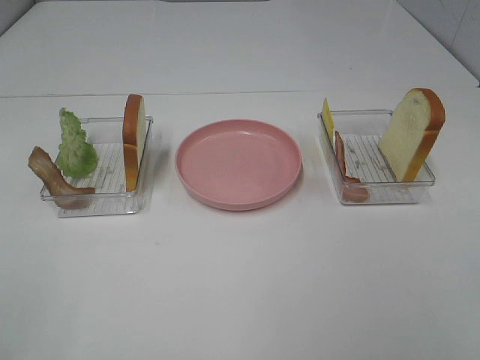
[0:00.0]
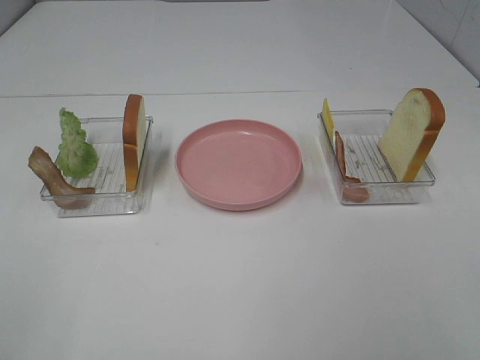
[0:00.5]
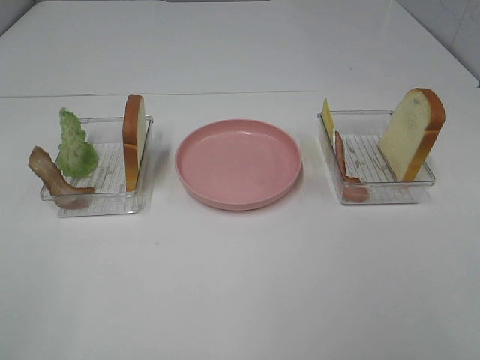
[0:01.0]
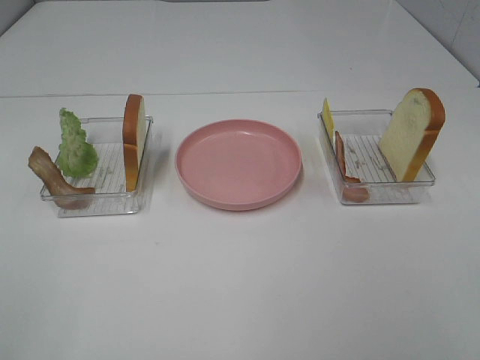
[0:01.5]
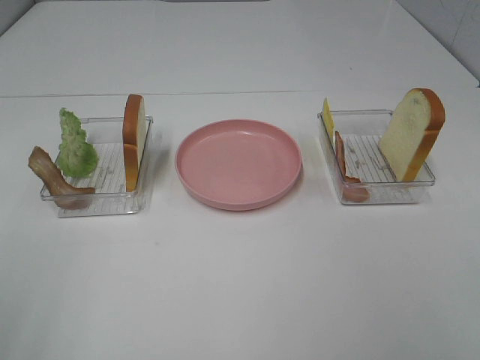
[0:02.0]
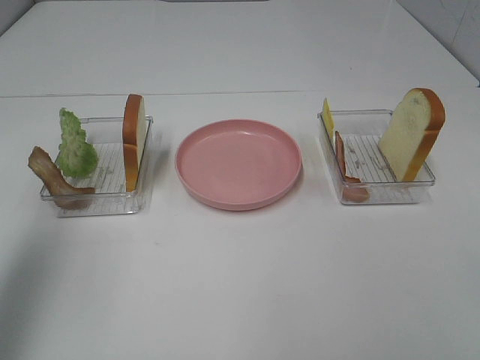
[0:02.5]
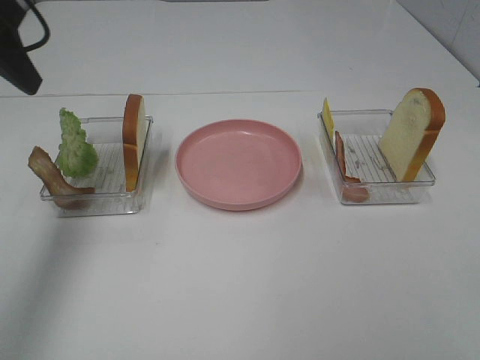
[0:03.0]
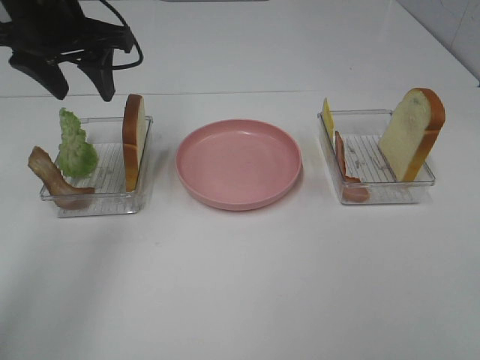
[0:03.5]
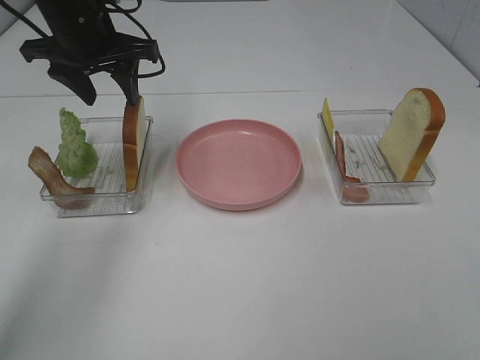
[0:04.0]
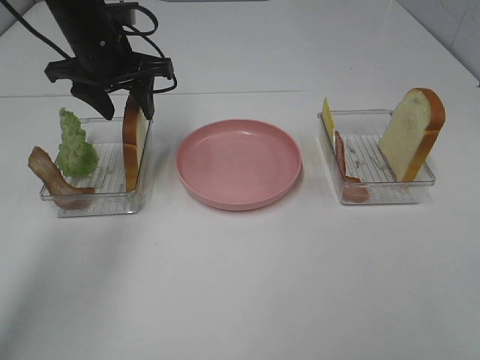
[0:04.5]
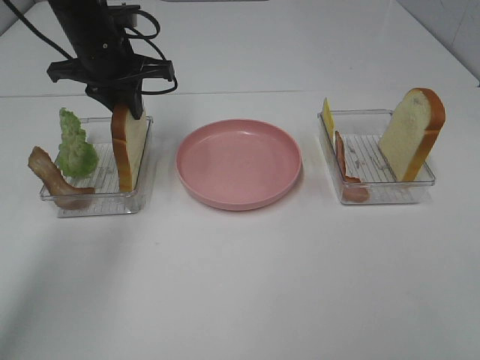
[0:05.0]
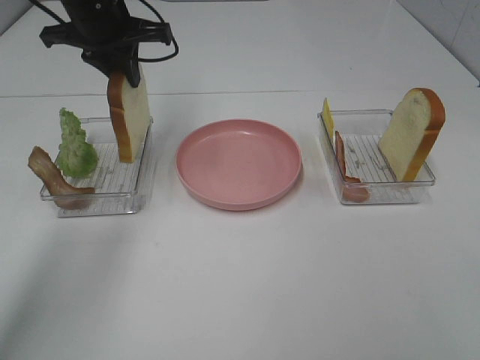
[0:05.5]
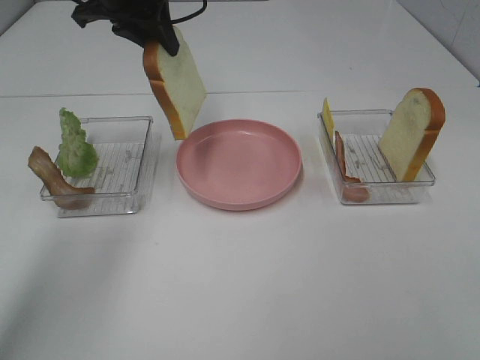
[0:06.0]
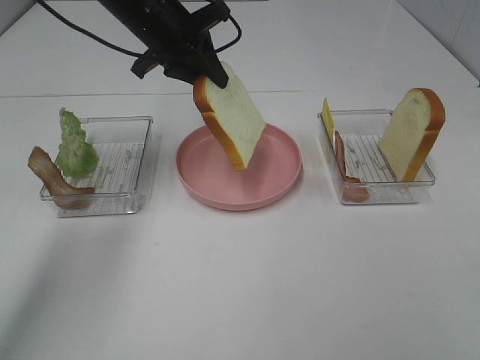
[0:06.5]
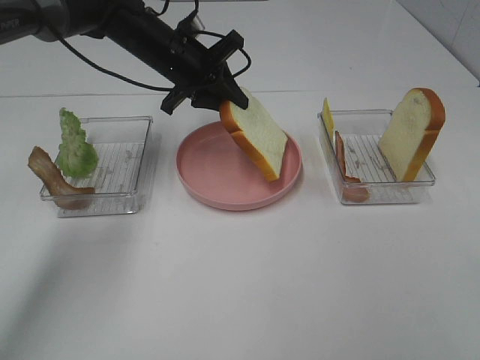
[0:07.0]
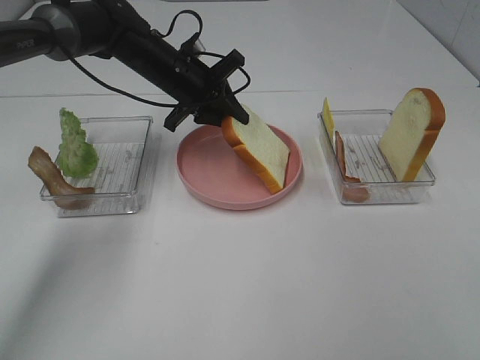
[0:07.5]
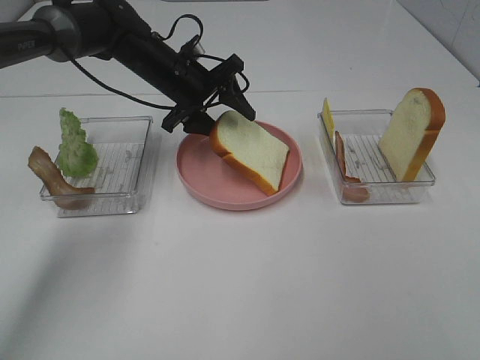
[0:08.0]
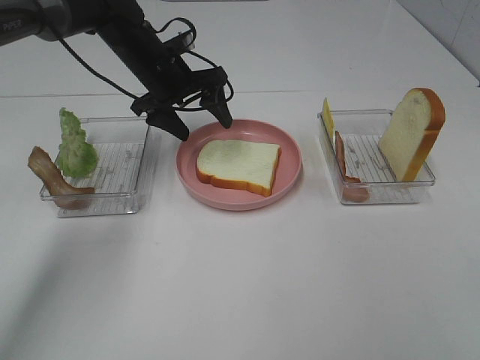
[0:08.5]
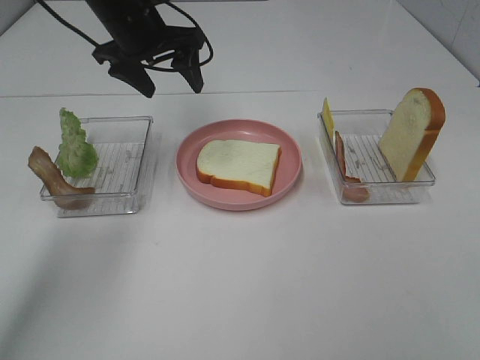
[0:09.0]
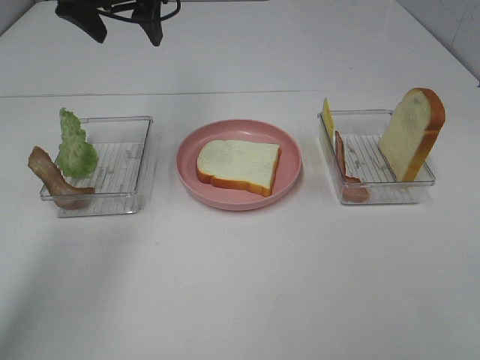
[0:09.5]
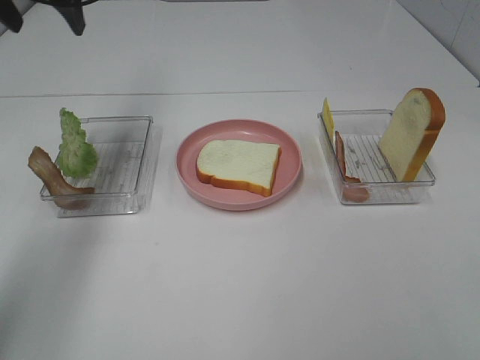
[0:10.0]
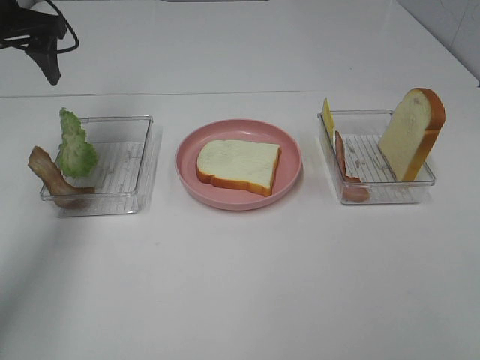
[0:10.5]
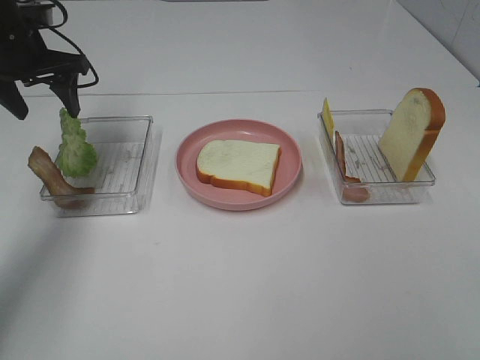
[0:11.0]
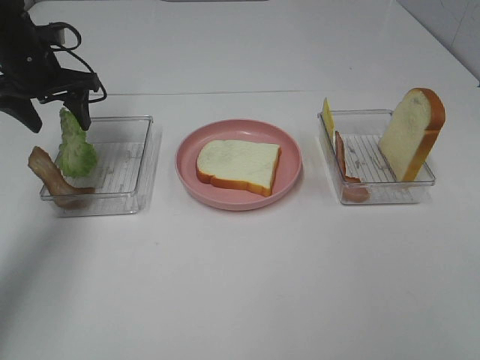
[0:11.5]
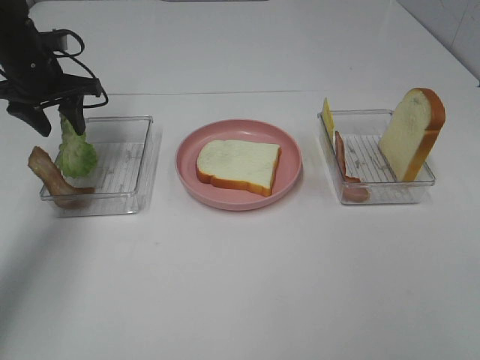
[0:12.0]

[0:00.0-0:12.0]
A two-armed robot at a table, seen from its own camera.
Task of the whole recording: Make sandwiches.
Step, 0:00.0 to 0:04.5: Left hand:grab the bread slice.
Step, 0:05.0 to 0:08.0: Left hand:place the bread slice on the plate.
0:02.0 to 0:04.0: The left gripper moves forward, about 40 cm.
0:04.0 to 0:06.0: The left gripper ends up about 5 cm from where it was, and closes.
0:06.0 to 0:08.0: The left gripper shifts some 15 cm downward, and opens up.
0:08.0 to 0:10.0: The left gripper travels upward and to the left by roughly 25 cm.
0:10.0 to 0:12.0: The left gripper goes roughly 15 cm downward.

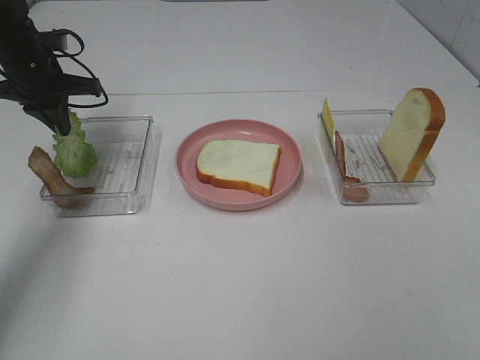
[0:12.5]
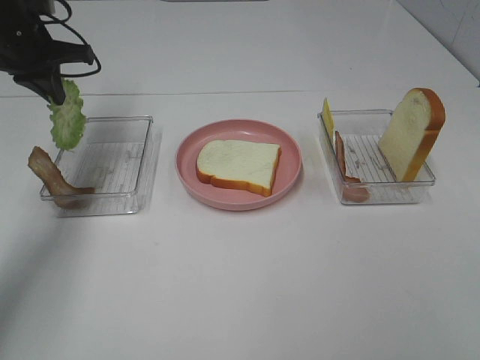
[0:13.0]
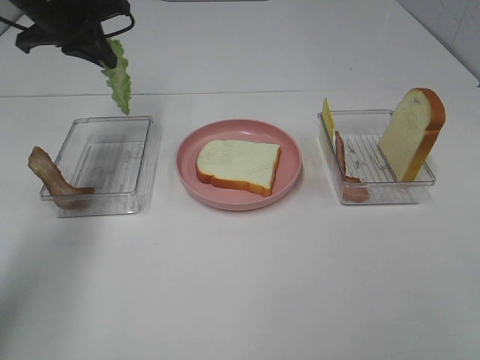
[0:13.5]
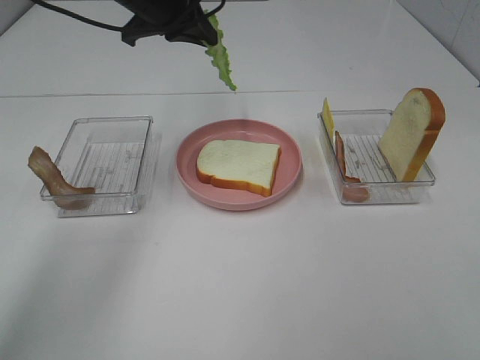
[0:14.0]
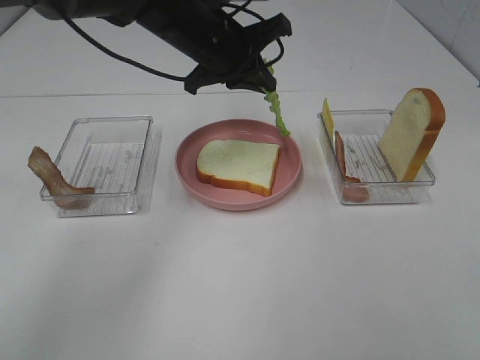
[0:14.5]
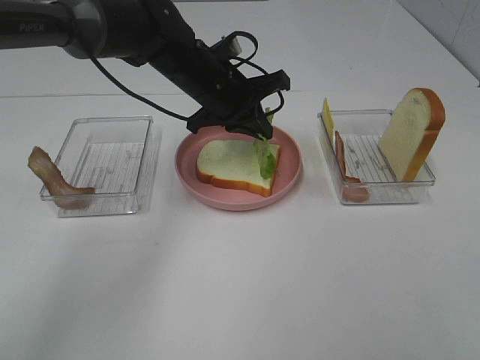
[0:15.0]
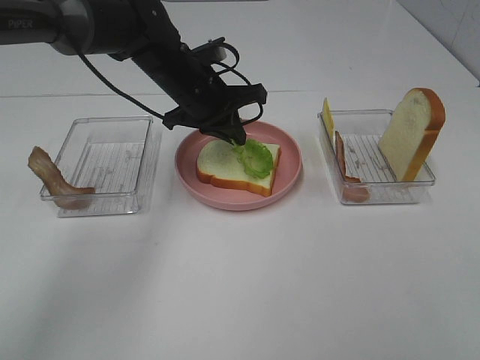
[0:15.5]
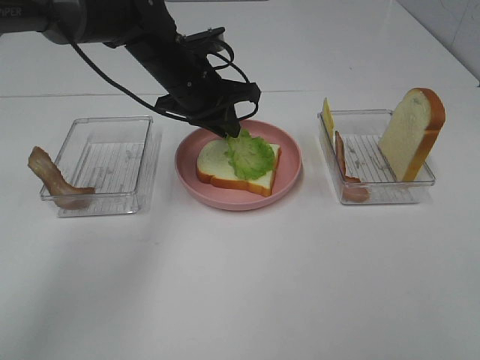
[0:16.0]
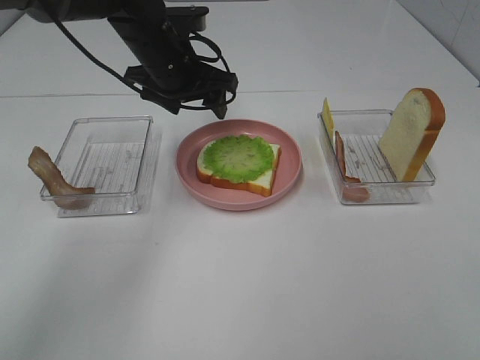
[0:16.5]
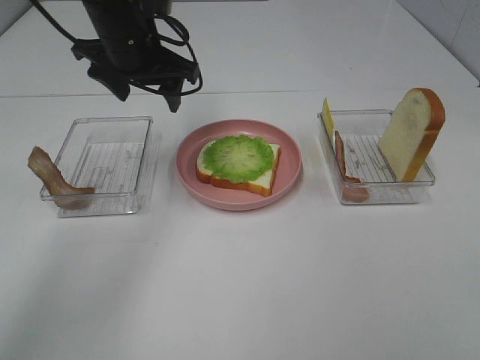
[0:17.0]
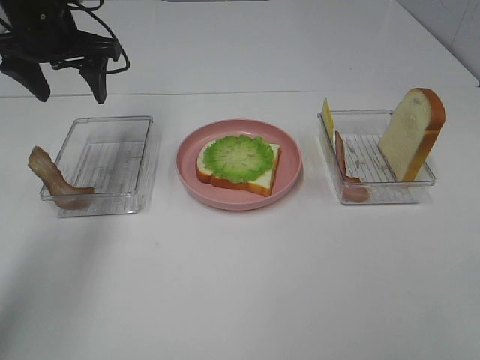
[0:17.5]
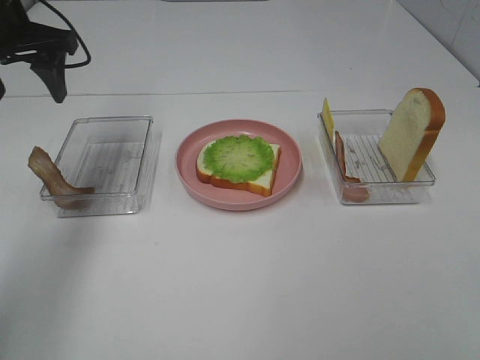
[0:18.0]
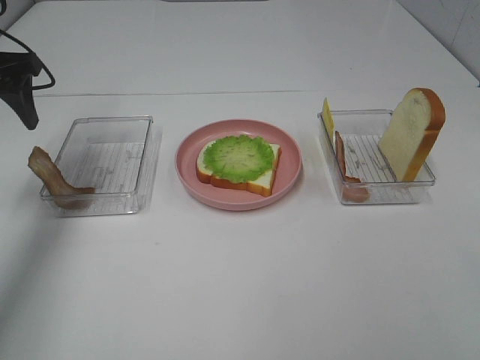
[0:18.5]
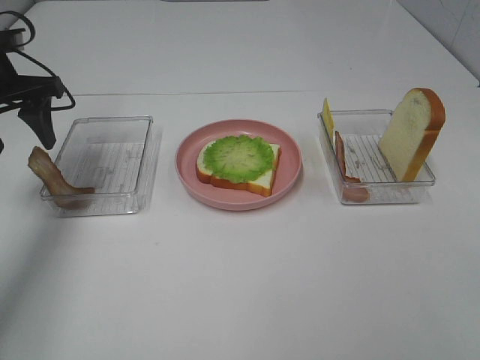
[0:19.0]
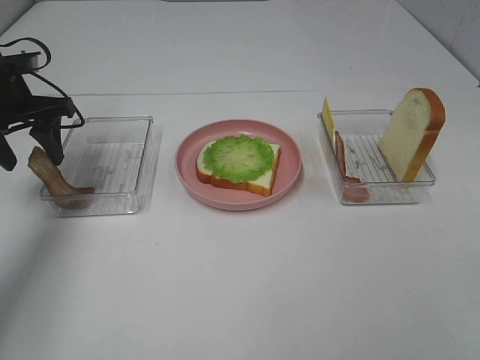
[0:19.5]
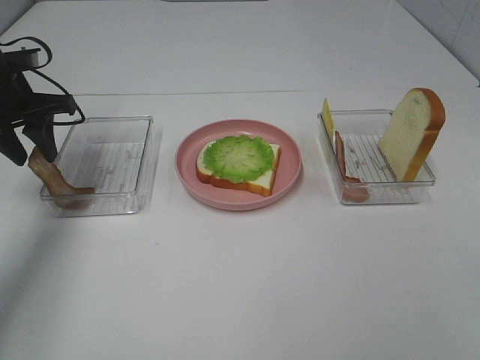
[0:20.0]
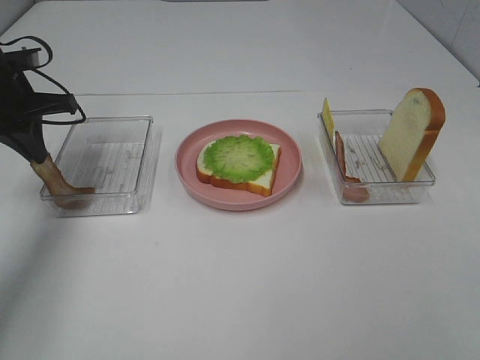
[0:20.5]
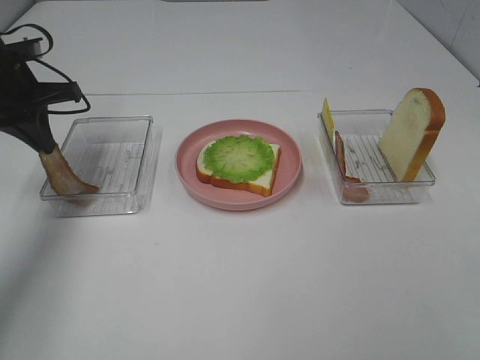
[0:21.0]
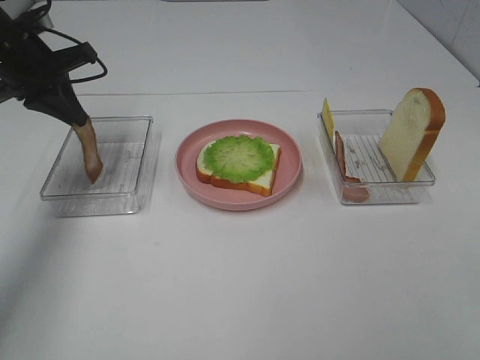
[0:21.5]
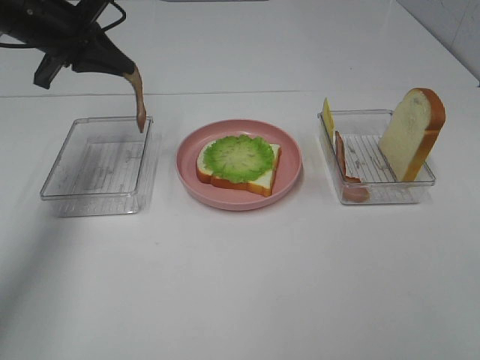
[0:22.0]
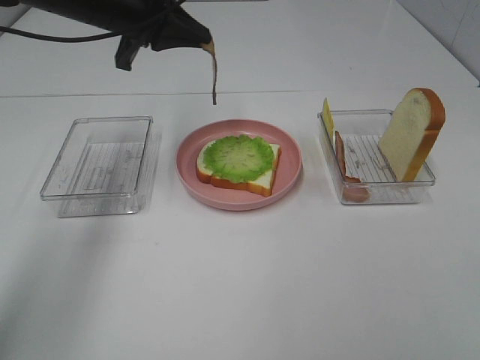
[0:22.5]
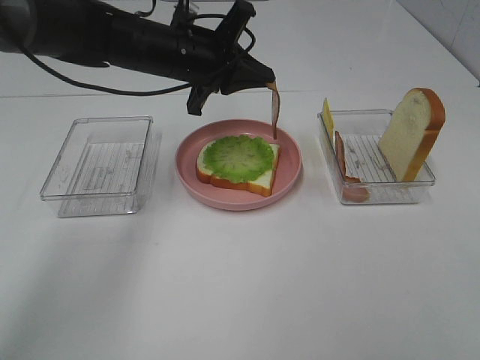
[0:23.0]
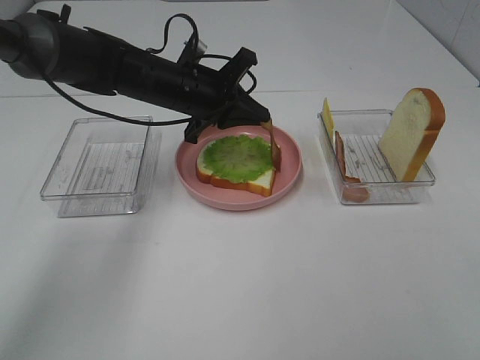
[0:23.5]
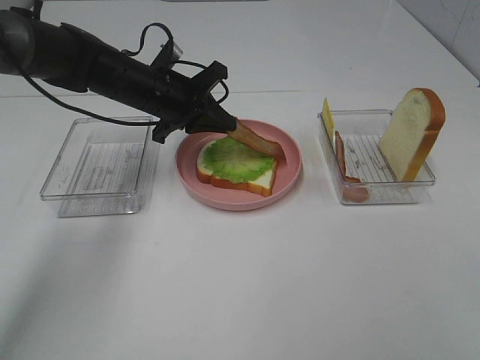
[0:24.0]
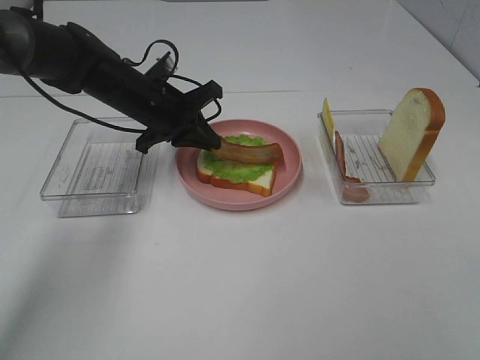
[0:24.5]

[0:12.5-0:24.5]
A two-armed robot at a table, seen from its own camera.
Task of the whole recording: Make sandwiches.
Step, 0:12.5 to 0:16.5: Left hand:place the lettuce slice on the bread slice.
Step, 0:17.0 to 0:20.5: Left hand:grab the bacon.
0:12.5 to 0:14.5: The left gripper moves to the right, roughly 25 cm.
0:14.5 to 0:16.5: The left gripper goes roughly 5 cm to the left, and opens.
0:16.5 to 0:18.5: The left gripper is displaced to the left by approximately 20 cm.
0:18.5 to 0:20.5: The left gripper travels downward by approximately 5 cm, and closes.
0:20.5 to 0:22.5: The left gripper moves to the right and upward, about 15 cm.
0:22.5 to 0:24.5: The left gripper travels downward by some 15 cm.

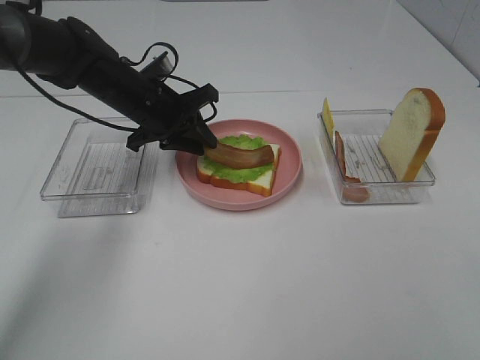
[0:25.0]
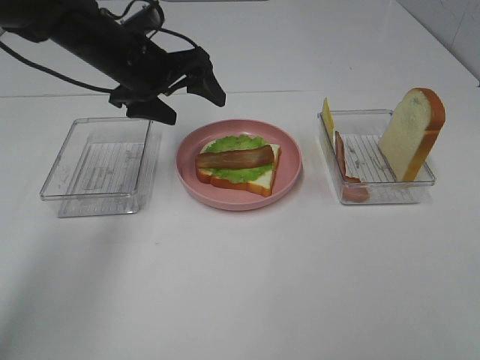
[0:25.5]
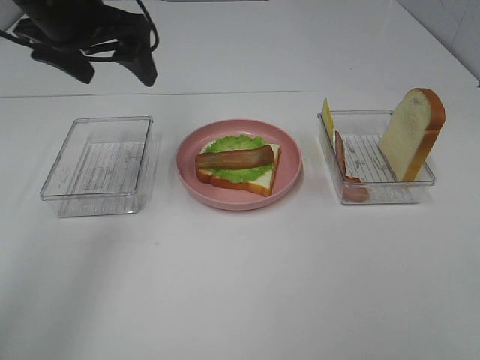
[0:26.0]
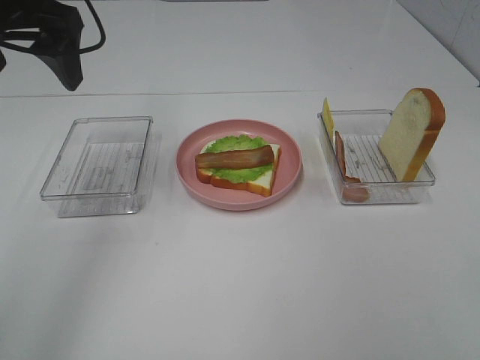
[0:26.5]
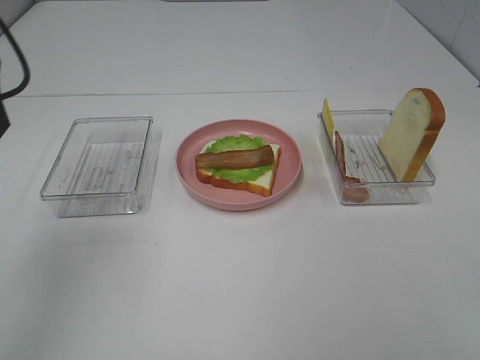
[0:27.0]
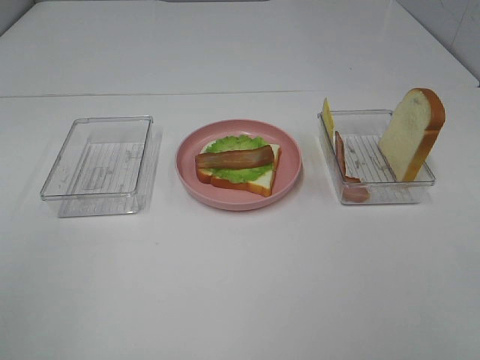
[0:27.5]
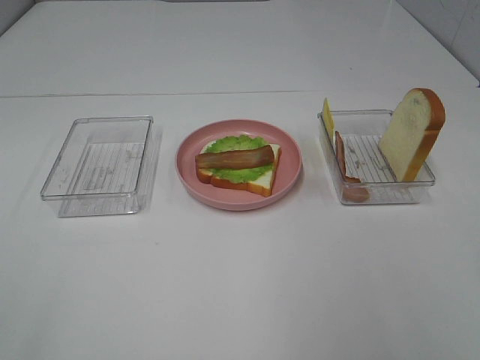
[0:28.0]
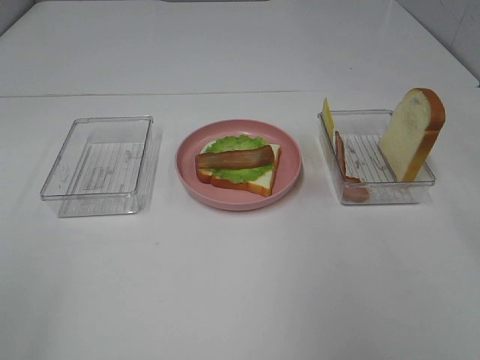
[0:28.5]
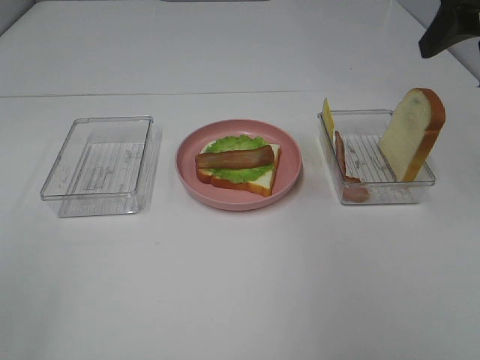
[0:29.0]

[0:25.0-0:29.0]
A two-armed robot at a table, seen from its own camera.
Task of the whole recording: Make sandwiches.
0:25.0 to 0:27.0: The left gripper goes about 30 cm upward, backward and to the left, and opens.
0:27.0 to 0:29.0: The left gripper travels backward by roughly 25 cm. The right gripper shifts about 35 cm forward.
